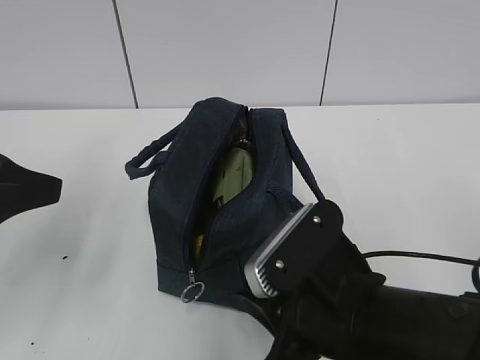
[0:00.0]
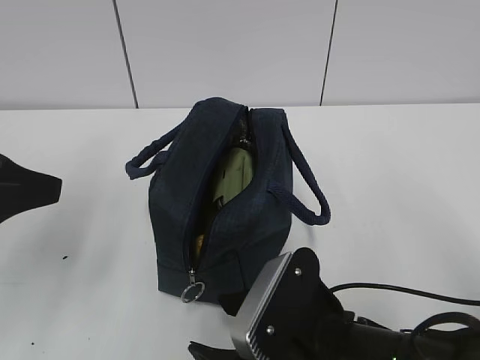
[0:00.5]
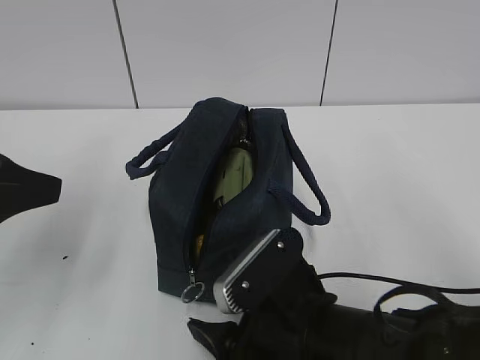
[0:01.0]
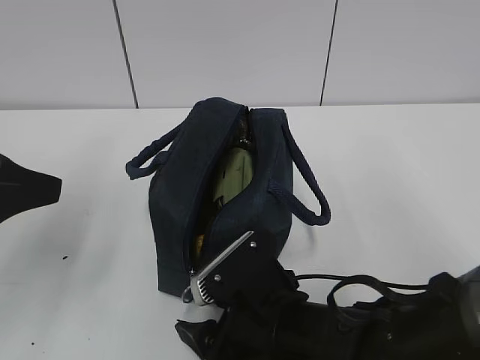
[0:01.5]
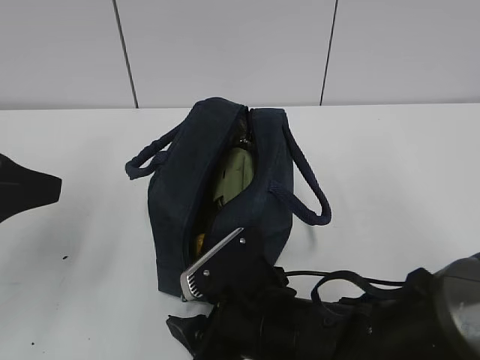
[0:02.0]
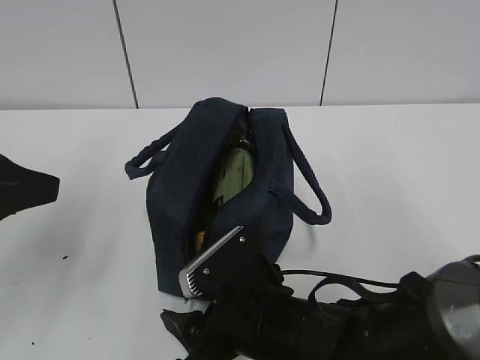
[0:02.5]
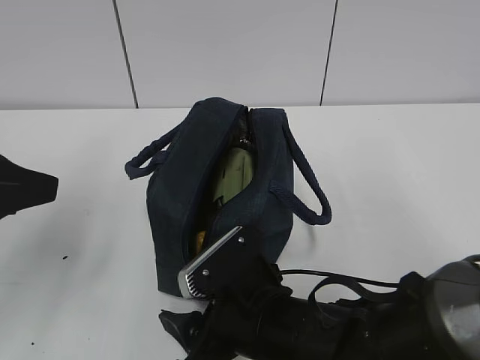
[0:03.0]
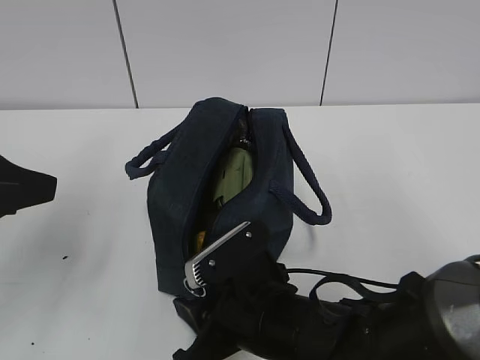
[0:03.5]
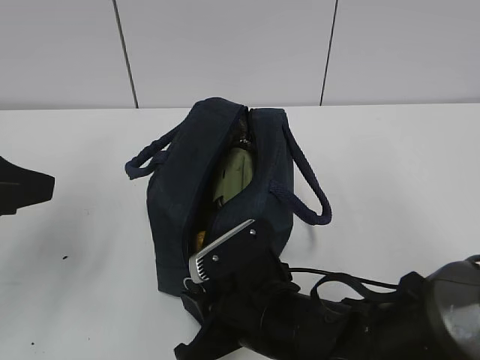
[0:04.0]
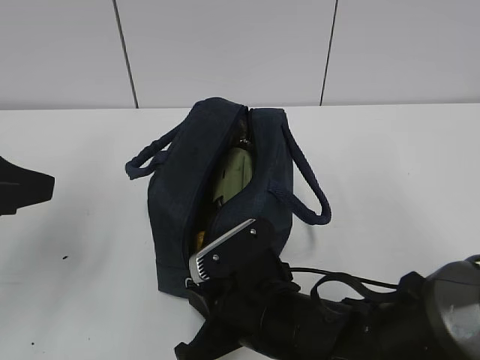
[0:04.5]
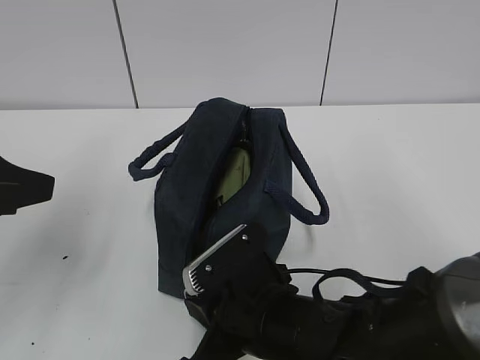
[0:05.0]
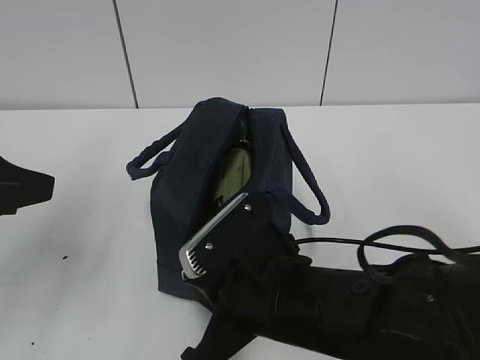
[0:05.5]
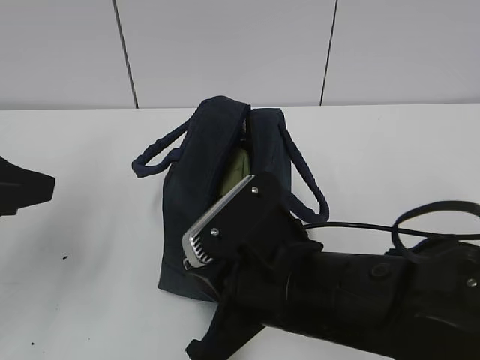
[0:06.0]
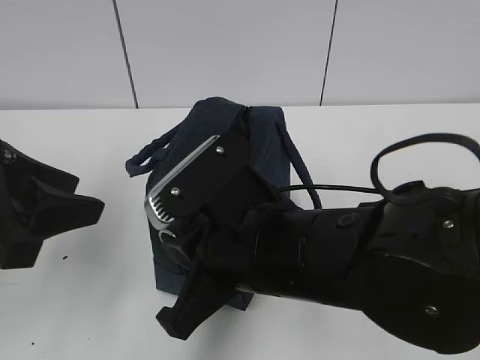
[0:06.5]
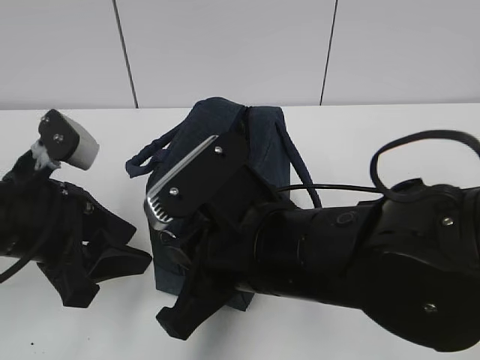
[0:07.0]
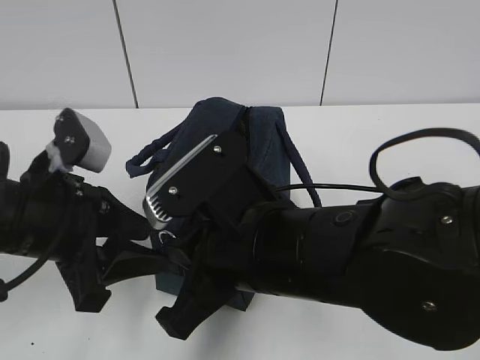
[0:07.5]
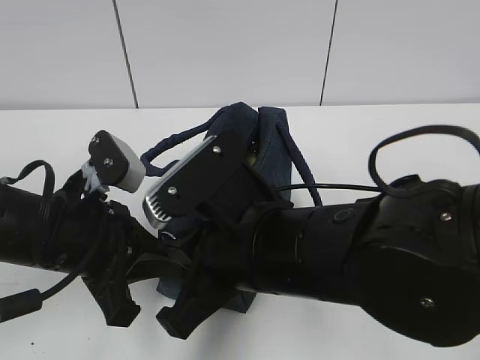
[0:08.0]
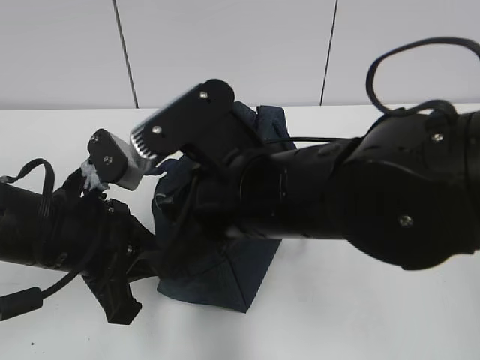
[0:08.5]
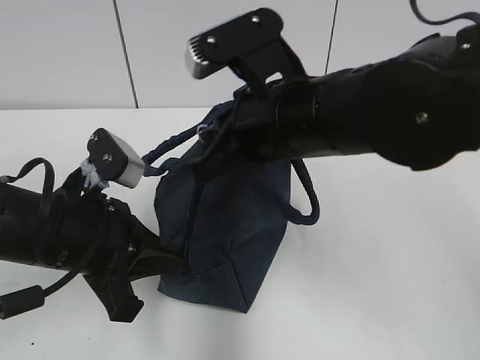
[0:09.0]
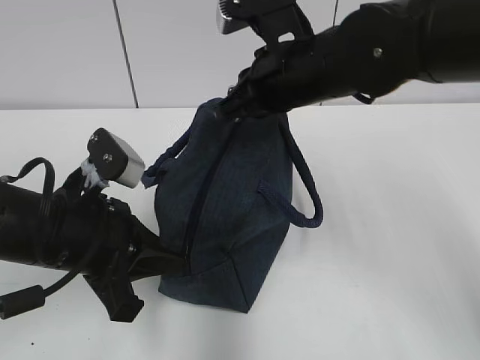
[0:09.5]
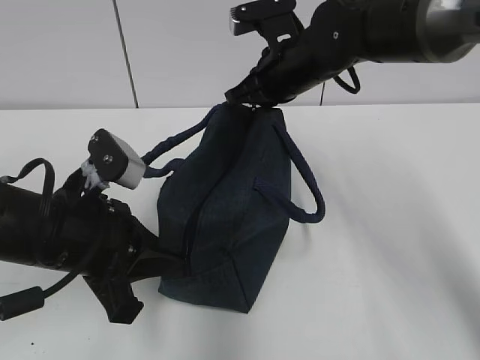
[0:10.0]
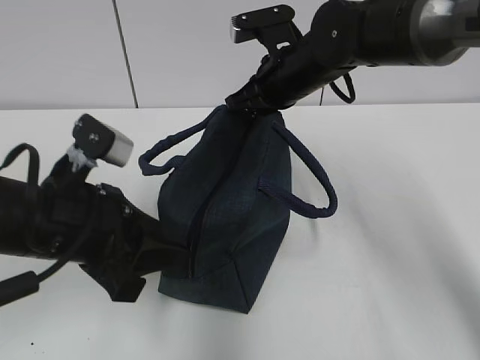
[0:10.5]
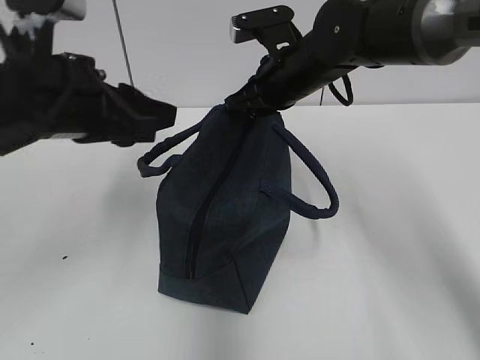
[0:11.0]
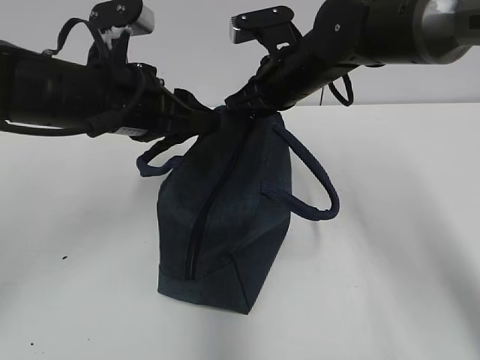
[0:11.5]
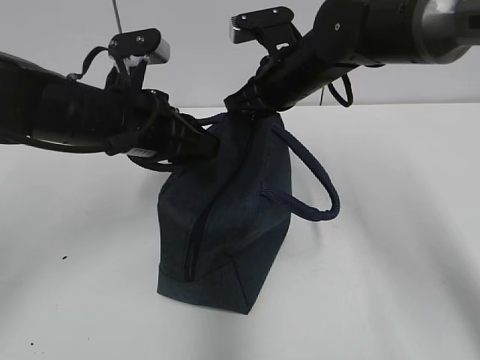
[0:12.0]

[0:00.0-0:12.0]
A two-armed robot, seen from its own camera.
Step, 0:00.0 to 0:08.0: Grab the lunch bag with your left hand.
0:00.0 to 0:02.0: The right gripper goes some 10 cm downward and to the left, and opens up.
0:02.0 to 0:04.0: The right gripper closes its fingers.
0:04.0 to 0:06.0: The right gripper travels upward by about 10 cm.
0:06.0 to 0:08.0: The left gripper is displaced downward and to the right by about 15 cm, and closes up.
0:08.0 to 0:10.0: The right gripper is displaced forward by roughly 25 cm.
0:10.0 to 0:12.0: The left gripper travels forward by roughly 10 cm, and opens up.

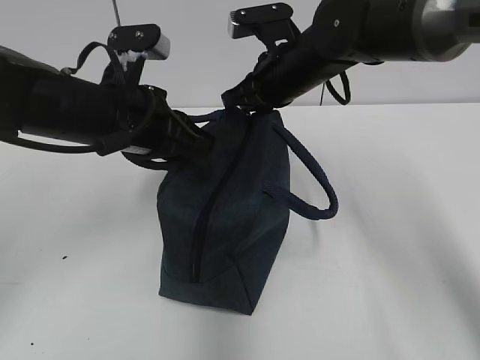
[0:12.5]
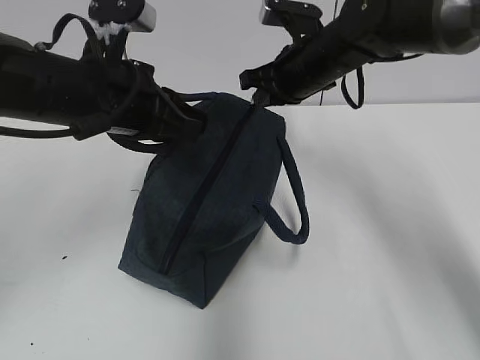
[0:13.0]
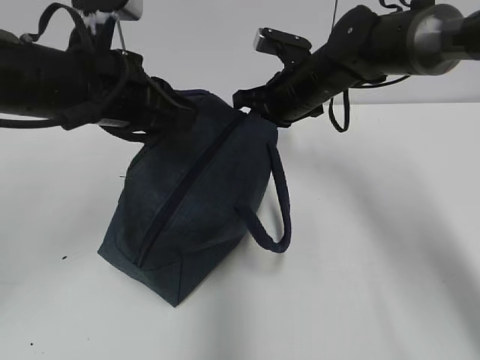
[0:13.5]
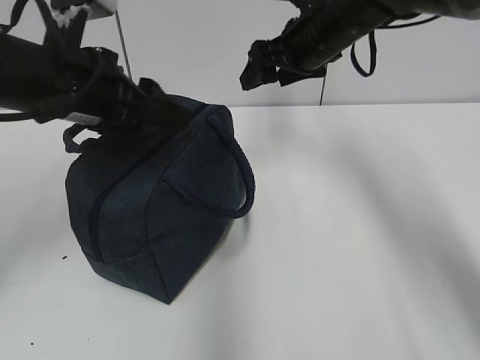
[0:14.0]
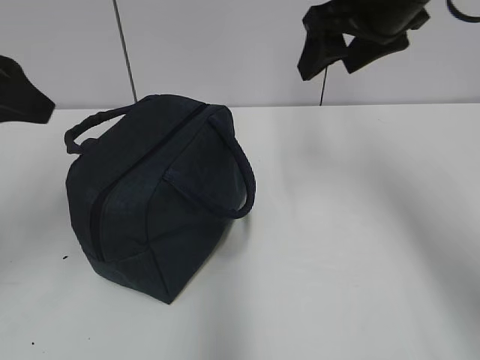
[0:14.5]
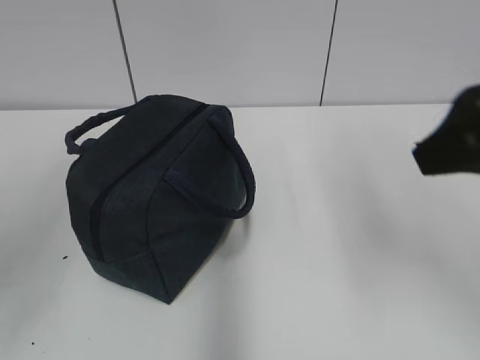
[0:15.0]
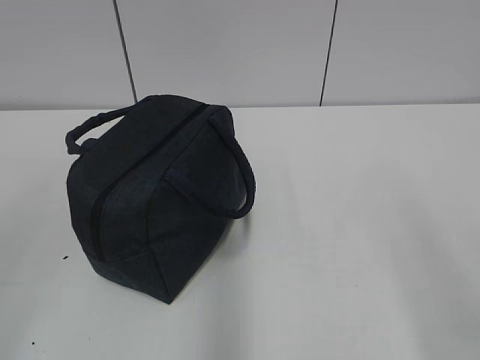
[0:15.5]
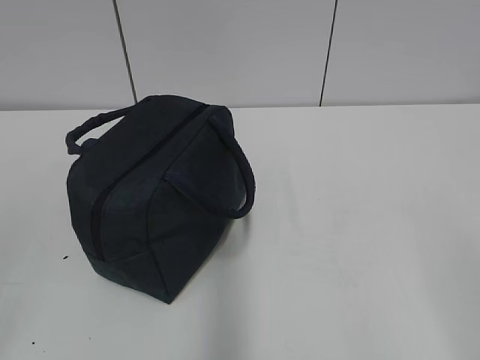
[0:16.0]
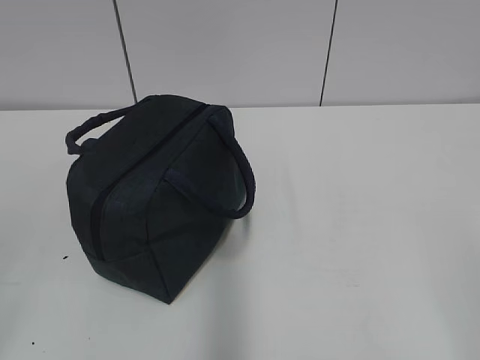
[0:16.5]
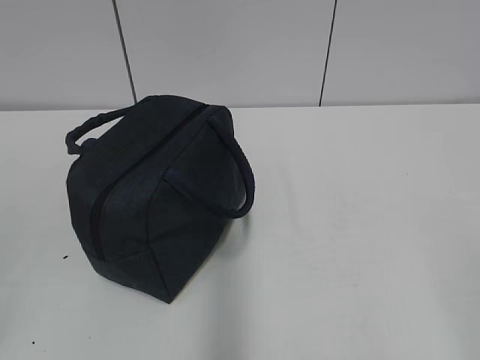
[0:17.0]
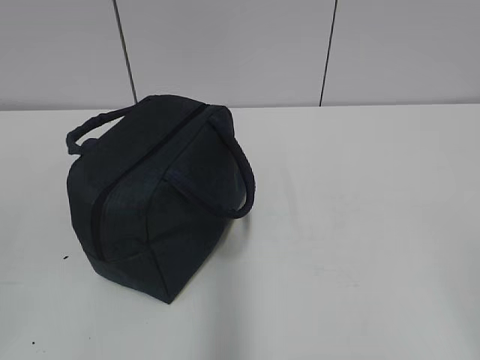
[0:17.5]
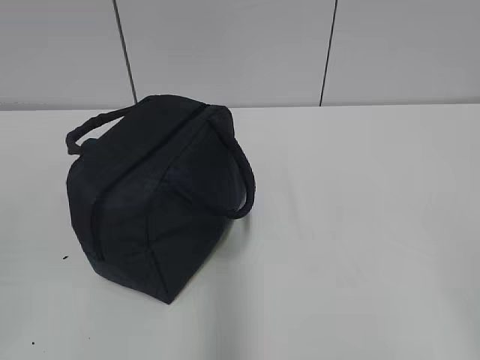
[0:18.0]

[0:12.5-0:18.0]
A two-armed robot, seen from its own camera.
0:12.5 to 0:14.5: The left gripper travels to the left, upward and backward by roughly 15 cm, and opens up, while the right gripper shifts some 15 cm upward, to the right and backward, and opens its fingers.
0:14.5 to 0:16.0: The right gripper travels backward by some 35 cm, while the left gripper is displaced backward by some 25 cm.

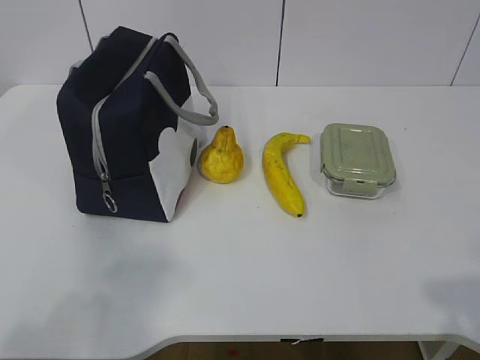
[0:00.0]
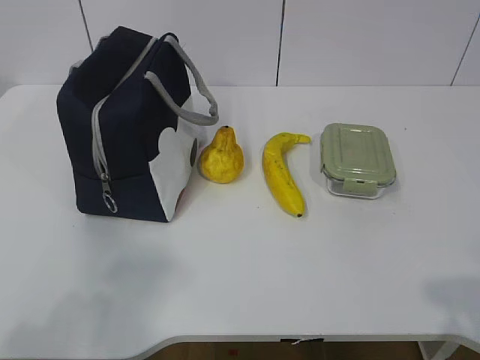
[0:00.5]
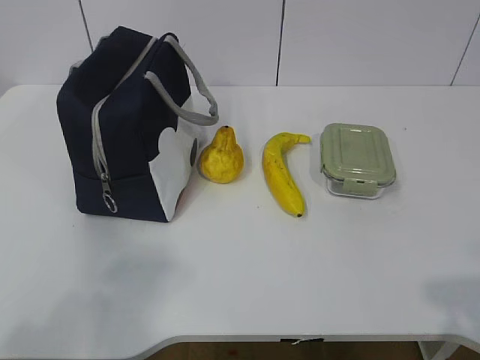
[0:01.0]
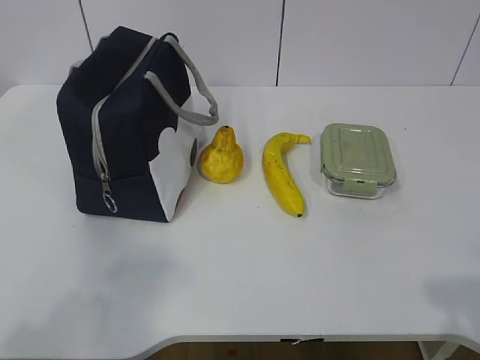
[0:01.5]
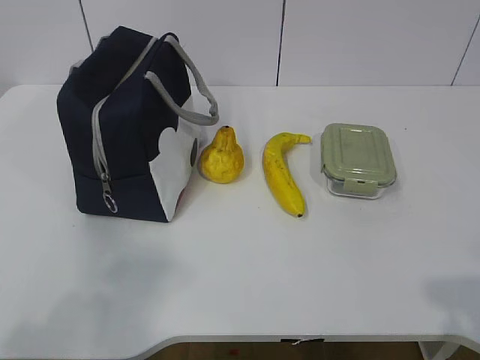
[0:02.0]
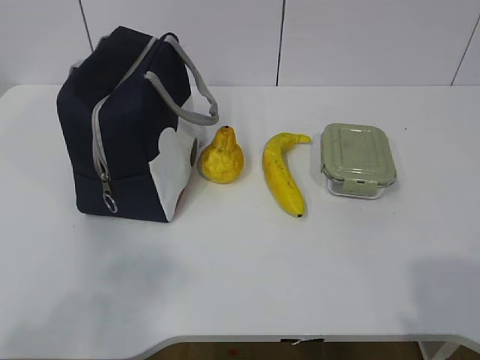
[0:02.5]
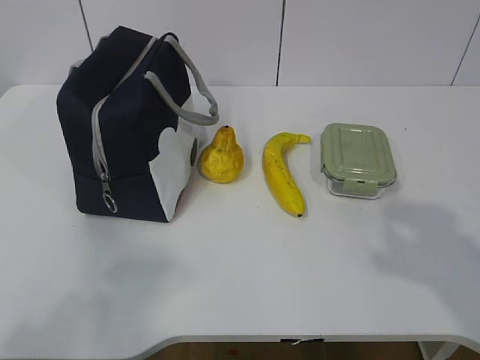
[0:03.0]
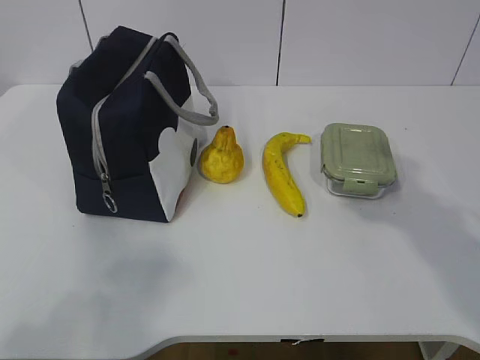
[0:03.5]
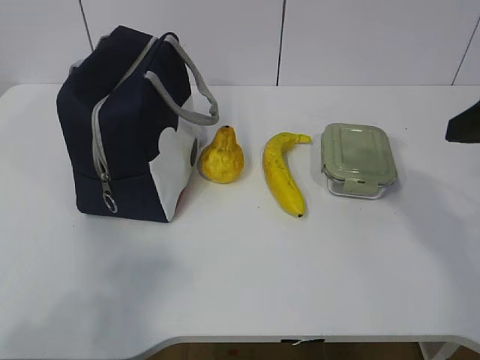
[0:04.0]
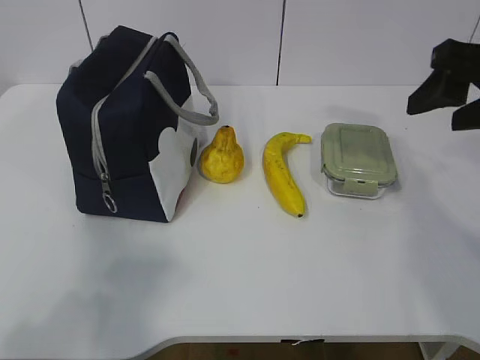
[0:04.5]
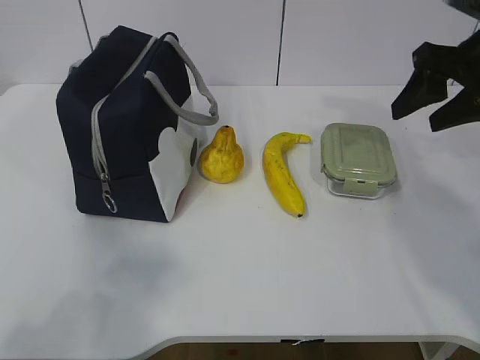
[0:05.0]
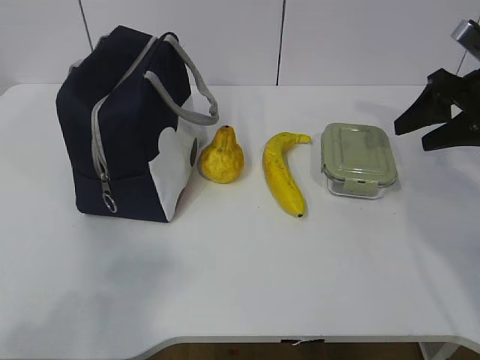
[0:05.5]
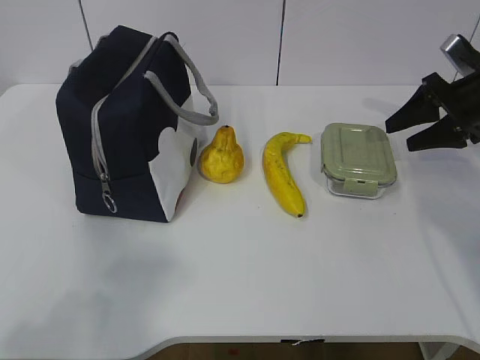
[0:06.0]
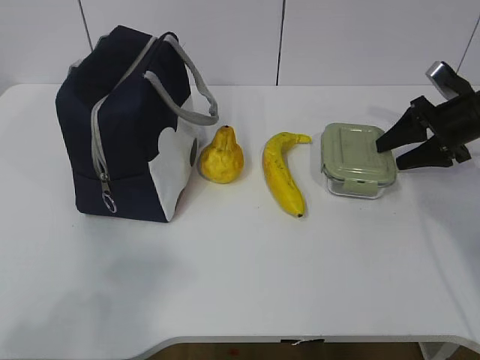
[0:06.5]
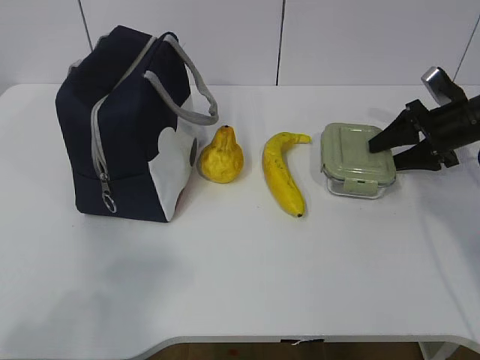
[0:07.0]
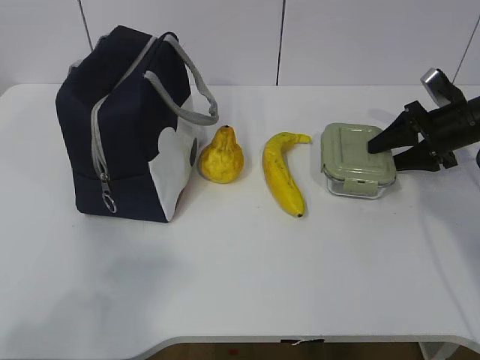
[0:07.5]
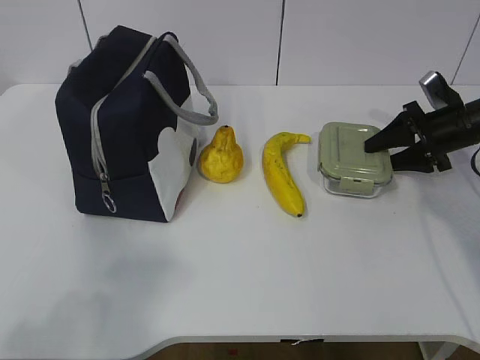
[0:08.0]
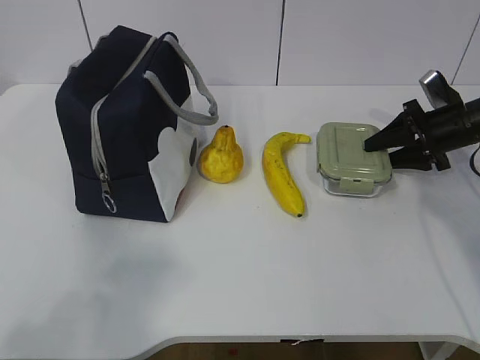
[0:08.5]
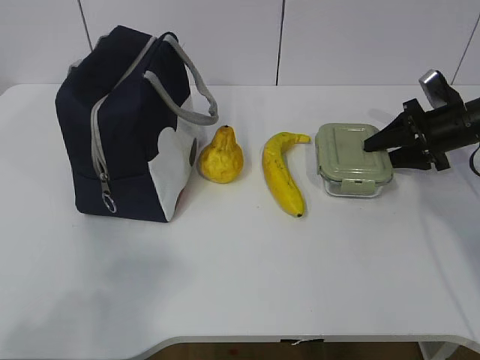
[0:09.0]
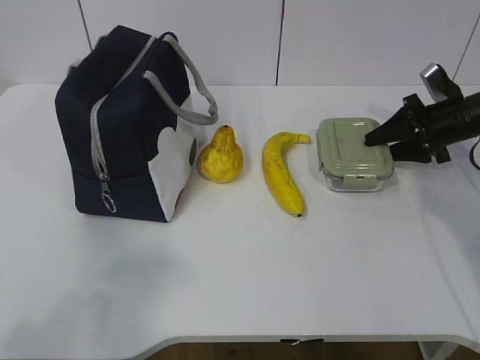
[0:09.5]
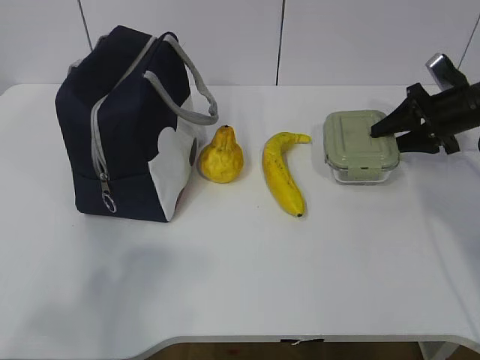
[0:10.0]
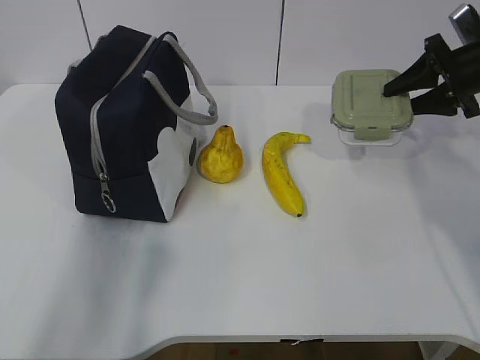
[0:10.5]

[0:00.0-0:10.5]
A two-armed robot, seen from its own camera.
Step, 0:00.0 to 0:07.5: Grab the lunch box with your right hand.
0:02.0 to 0:04.0: The right gripper is displaced forward by roughly 25 cm.
0:04.0 to 0:06.5: The right gripper is displaced forward, downward and to the right by approximately 25 cm.
0:06.5 to 0:08.5: The grippers make only small movements.
0:08.5 to 0:10.5: The left gripper shifts approximately 15 cm forward and upward, while the right gripper heads upward, covering about 10 cm.
